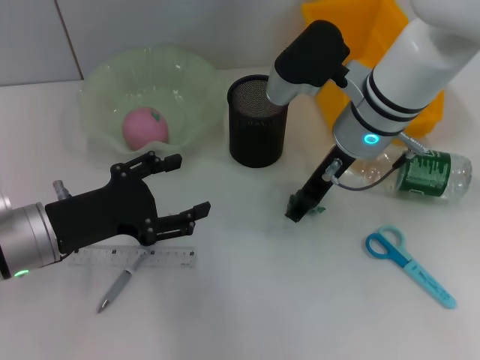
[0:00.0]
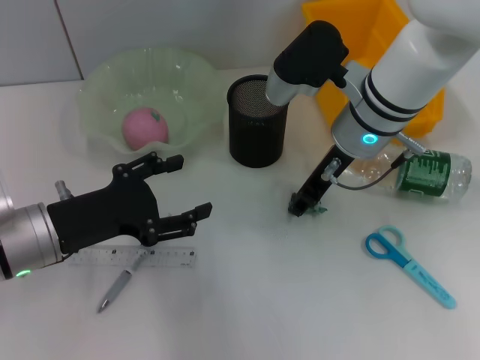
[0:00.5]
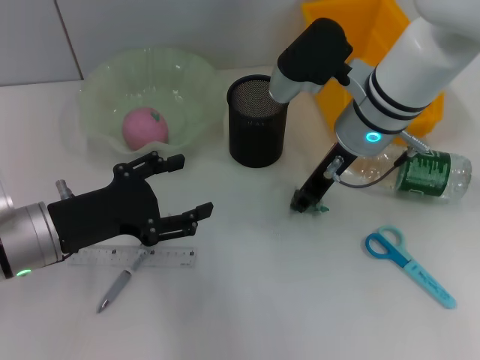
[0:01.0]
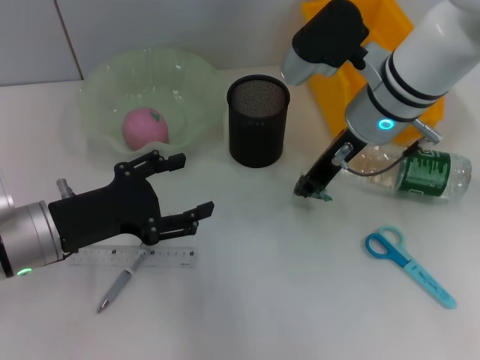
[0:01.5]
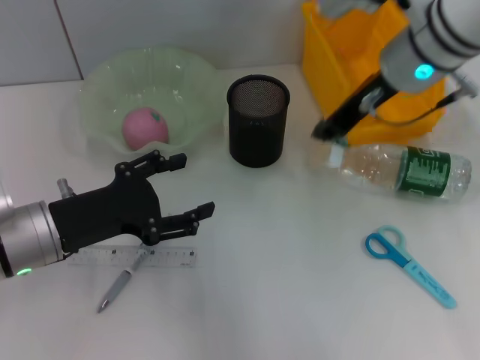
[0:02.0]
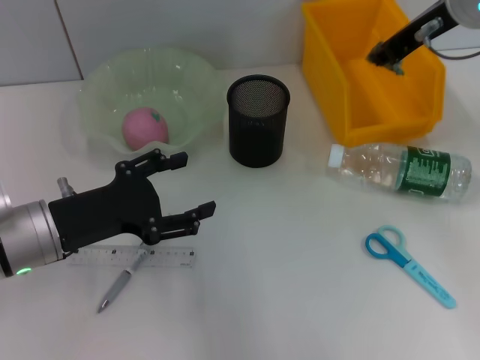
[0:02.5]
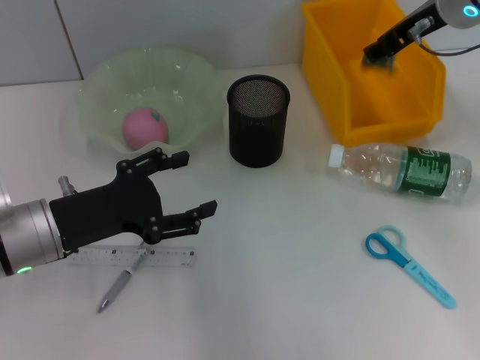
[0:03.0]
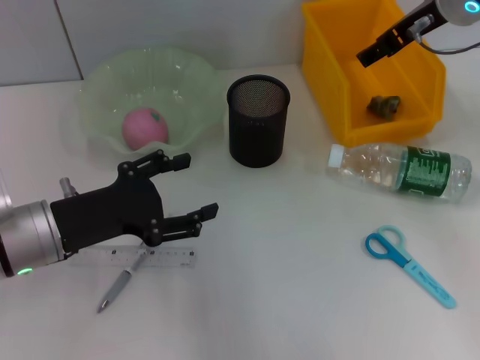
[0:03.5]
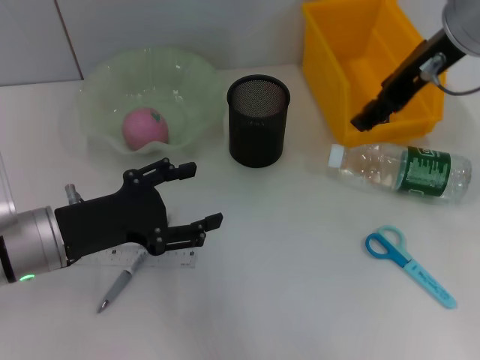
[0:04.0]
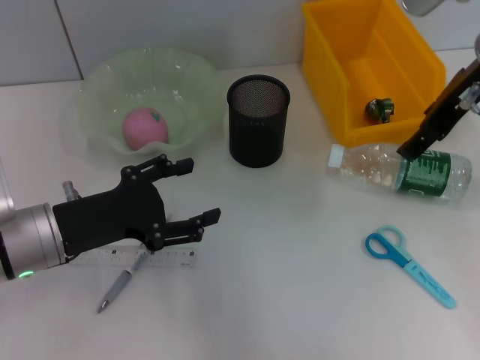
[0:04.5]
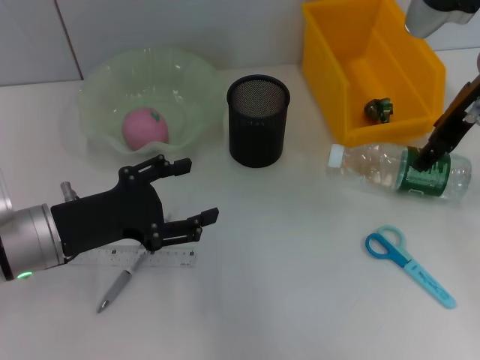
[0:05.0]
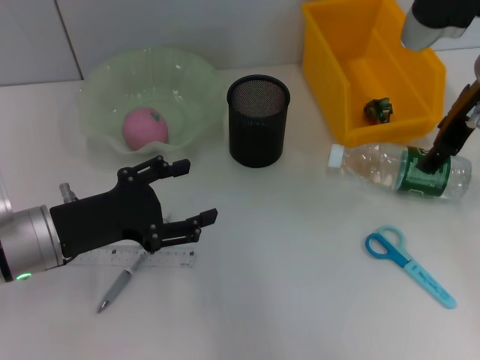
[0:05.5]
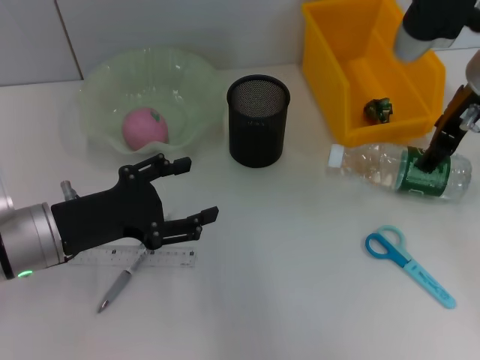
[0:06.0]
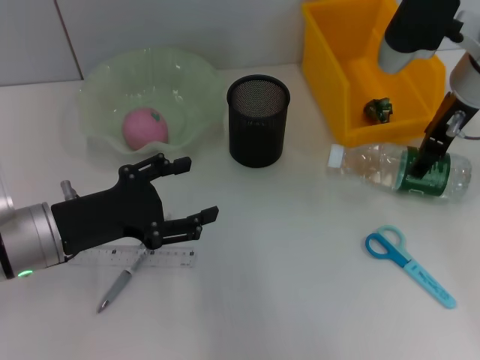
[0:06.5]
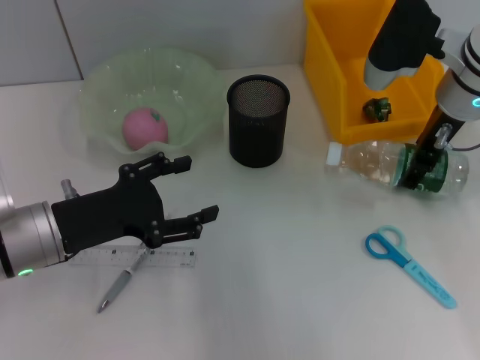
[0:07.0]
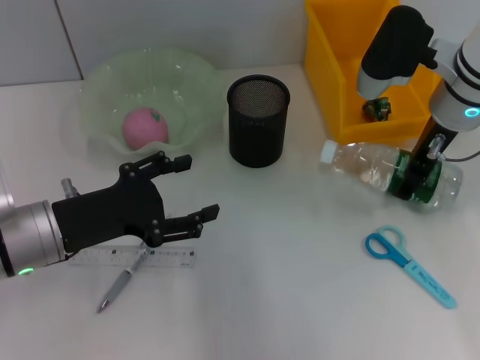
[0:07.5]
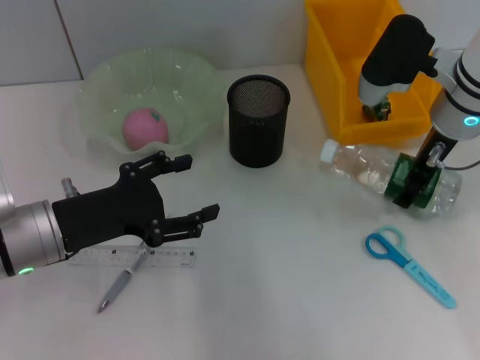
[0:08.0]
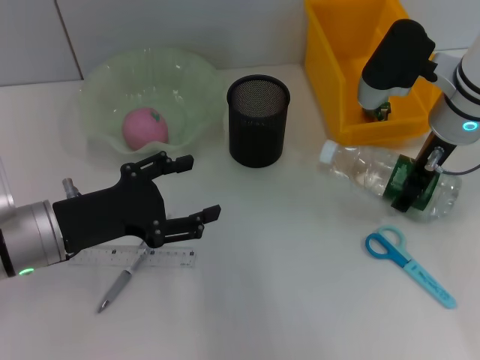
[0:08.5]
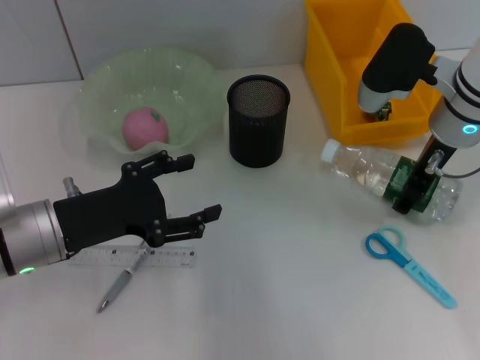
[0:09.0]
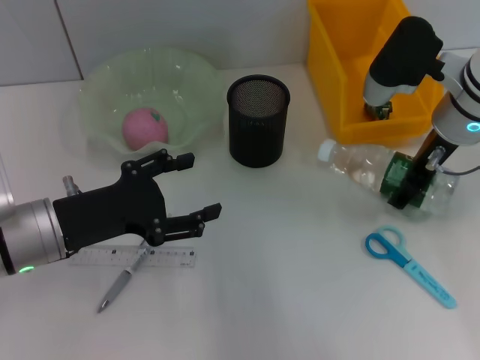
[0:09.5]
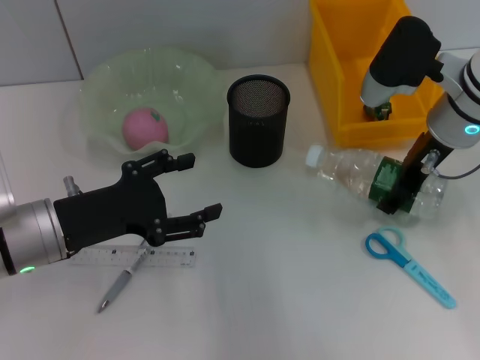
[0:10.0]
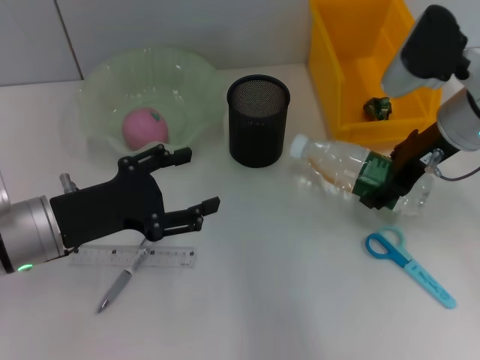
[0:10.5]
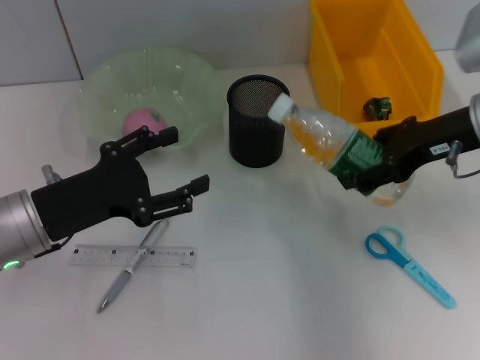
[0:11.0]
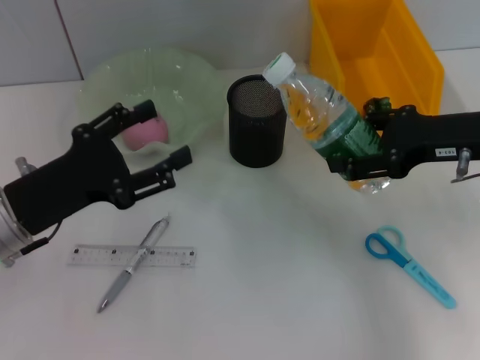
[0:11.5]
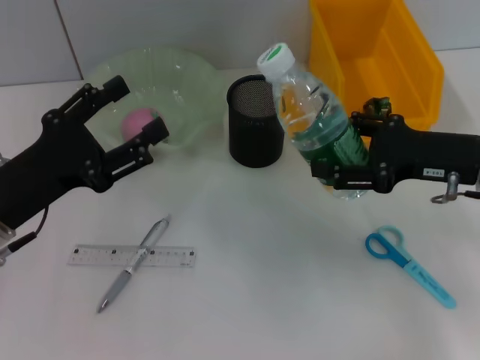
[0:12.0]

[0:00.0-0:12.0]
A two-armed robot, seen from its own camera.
Step, 1.5 to 3.0 s: Place the plastic into the trash can with the right hand.
Step, 3.5 to 9.0 s: Grab the water bottle with the right hand.
0.0 to 2.0 s: The right gripper heads upward, covering about 5 cm, and closes its fingers.
2.0 to 4.0 s: The right gripper shifts by about 5 cm, and opens its fingers.
4.0 to 6.0 s: The right gripper heads downward, covering some 5 cm.
6.0 to 10.0 s: There are only small adjustments of the grippers.
10.0 to 12.0 s: The right gripper shifts some 10 cm backward and to the right.

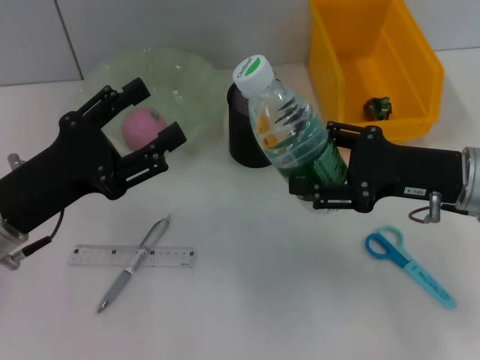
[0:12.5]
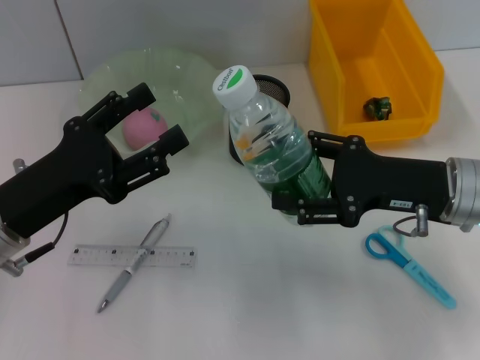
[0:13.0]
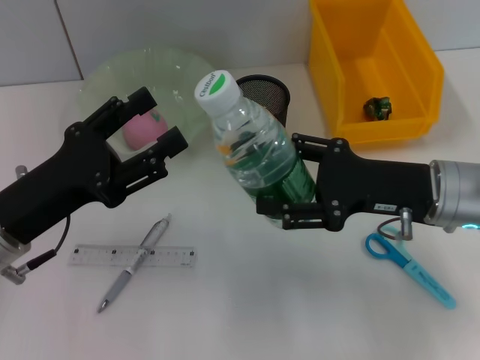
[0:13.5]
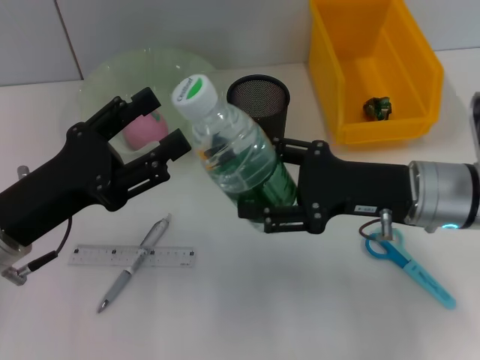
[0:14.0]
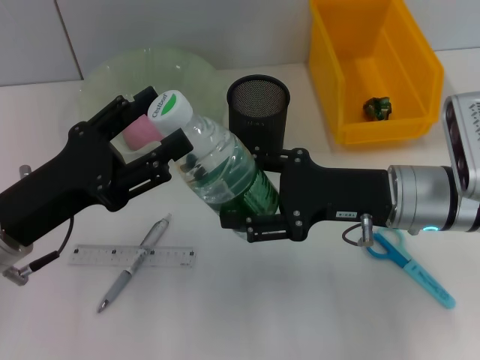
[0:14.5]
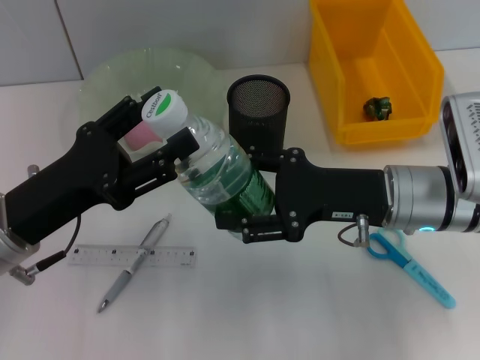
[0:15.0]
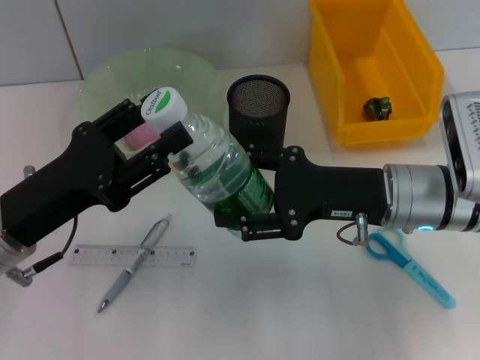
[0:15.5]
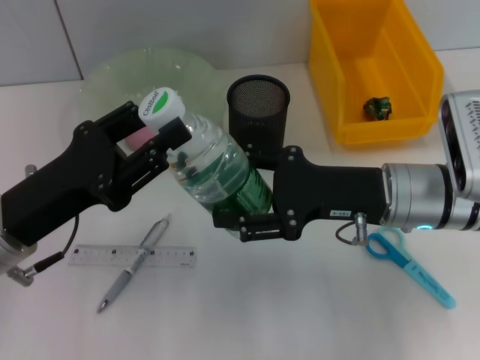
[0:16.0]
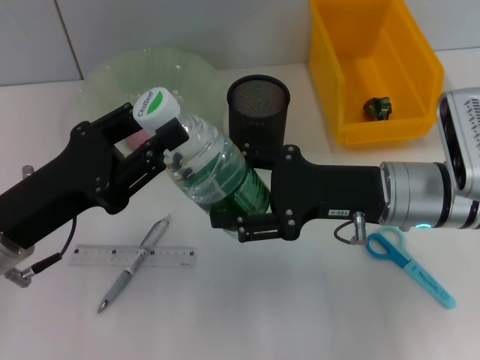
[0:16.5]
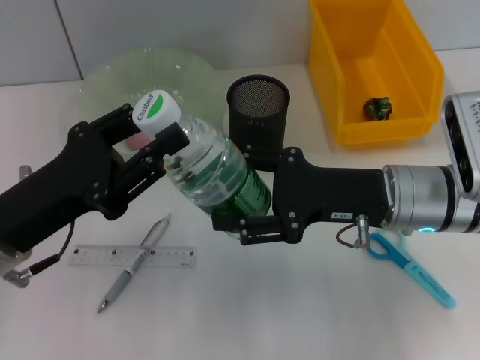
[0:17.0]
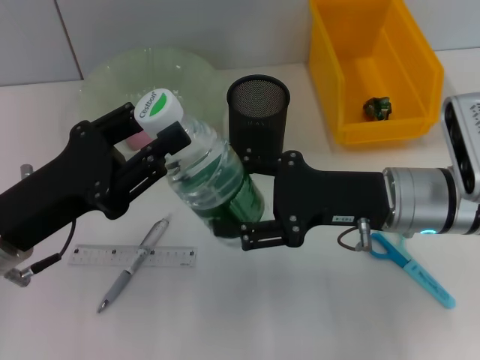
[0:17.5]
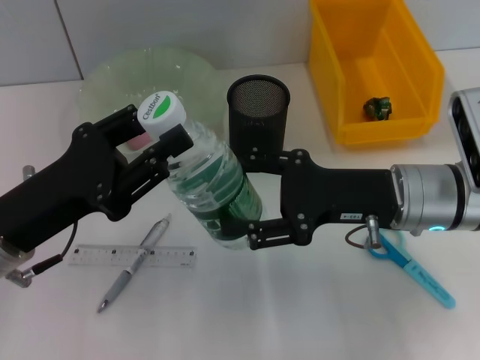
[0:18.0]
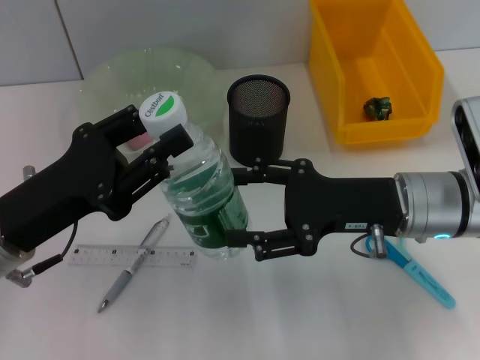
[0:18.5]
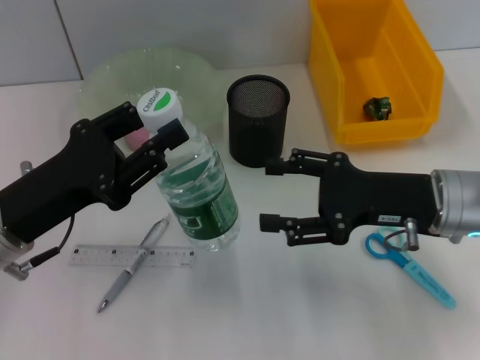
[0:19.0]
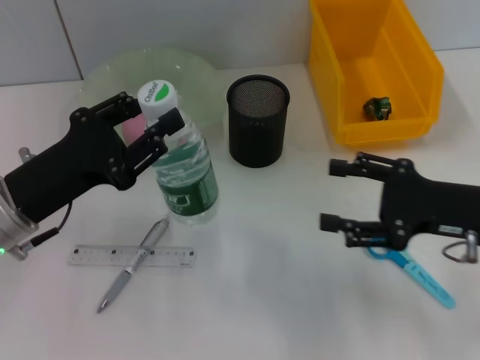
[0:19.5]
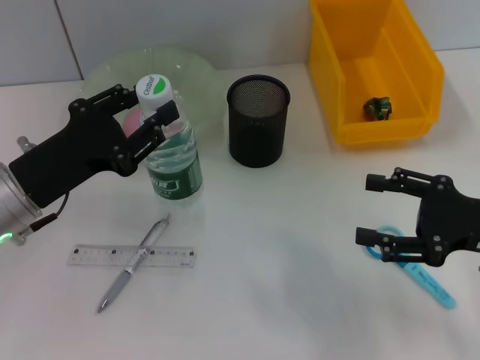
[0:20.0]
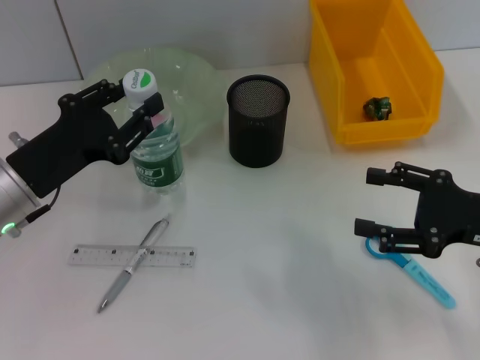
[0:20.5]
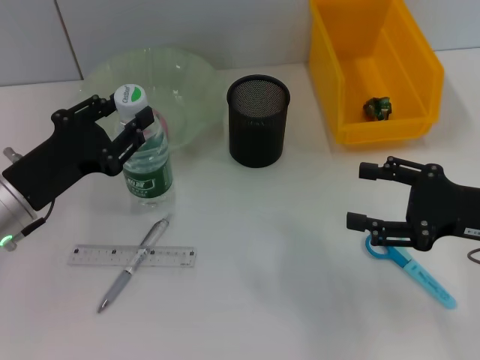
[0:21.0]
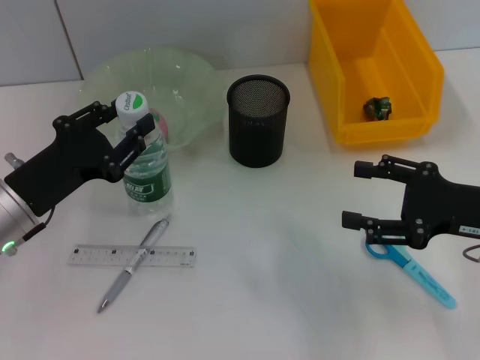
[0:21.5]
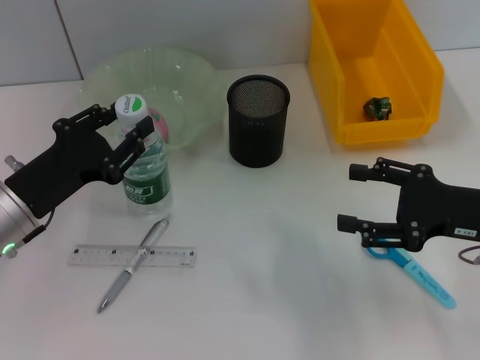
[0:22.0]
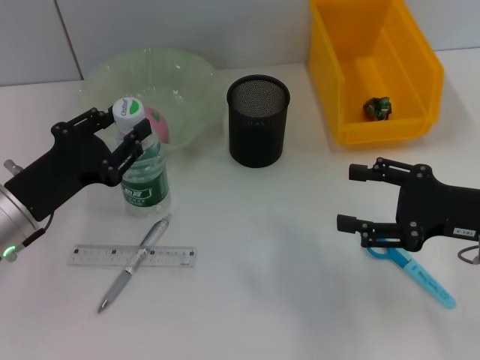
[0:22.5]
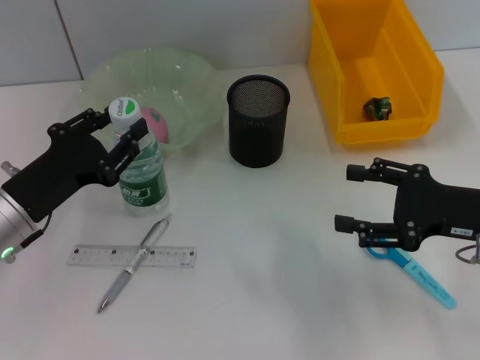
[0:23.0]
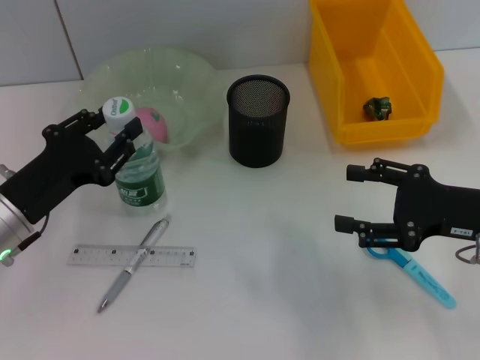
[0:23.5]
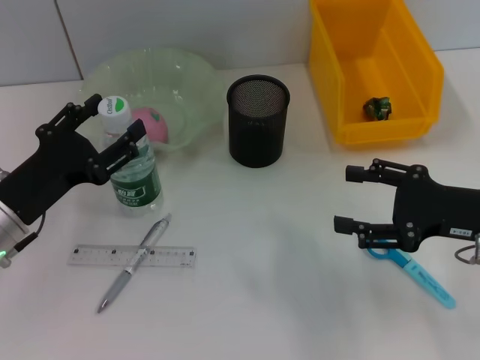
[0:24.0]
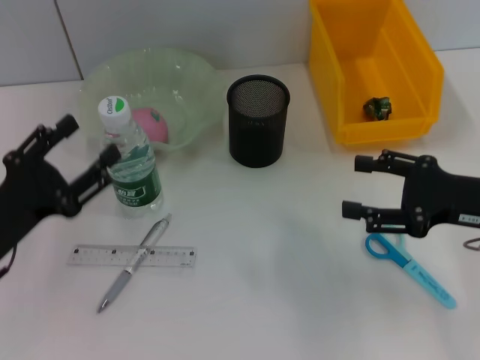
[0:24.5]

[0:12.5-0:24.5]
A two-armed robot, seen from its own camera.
Step, 12.5 to 18.5 s: Pass the water bottle from the right hand to the left hand.
Step, 19.0 to 23.5 s: Place the water bottle on the table with the left hand.
12.5 to 14.5 s: The right gripper travels to the left by roughly 5 cm.
14.5 to 16.5 s: The left gripper closes up.
16.5 to 18.5 s: There are only small adjustments of the grippers.
18.5 to 20.5 s: The left gripper shifts about 5 cm forward; the right gripper moves to the right, about 10 cm.
20.5 to 22.5 s: The grippers make only small movements.
22.5 to 24.5 s: The left gripper moves approximately 5 cm, and opens up.

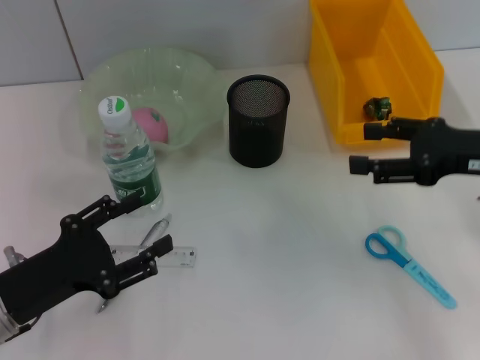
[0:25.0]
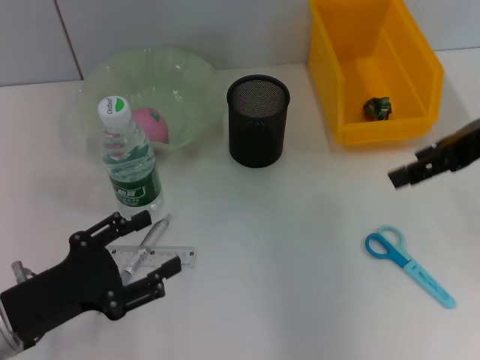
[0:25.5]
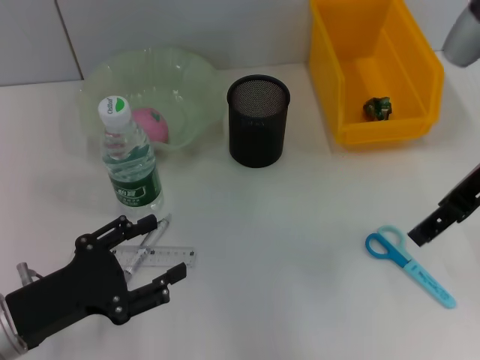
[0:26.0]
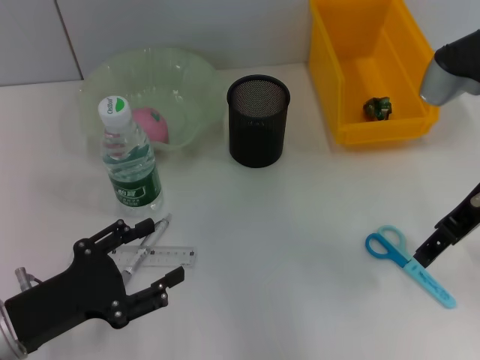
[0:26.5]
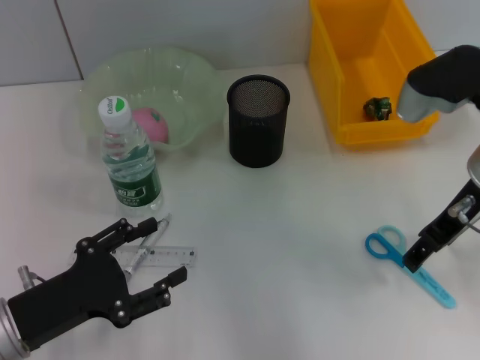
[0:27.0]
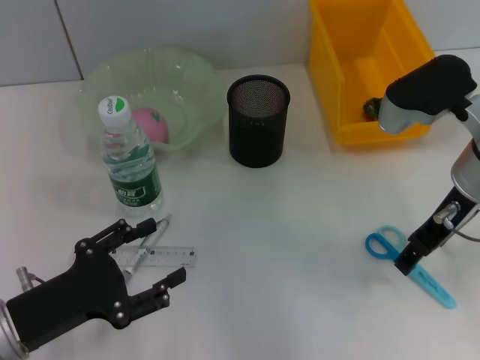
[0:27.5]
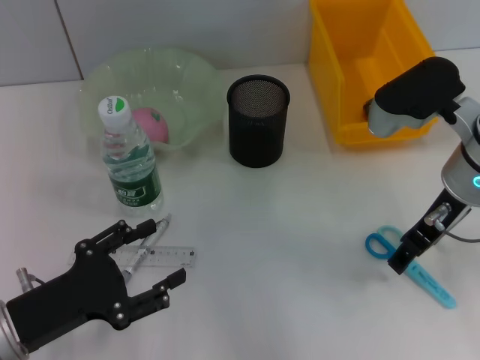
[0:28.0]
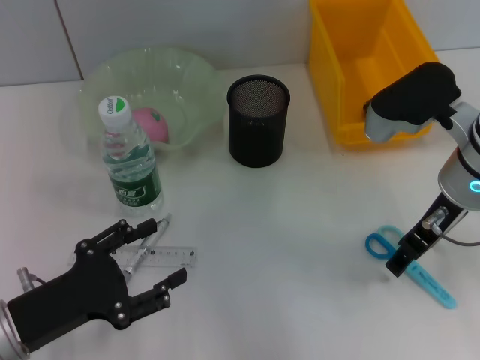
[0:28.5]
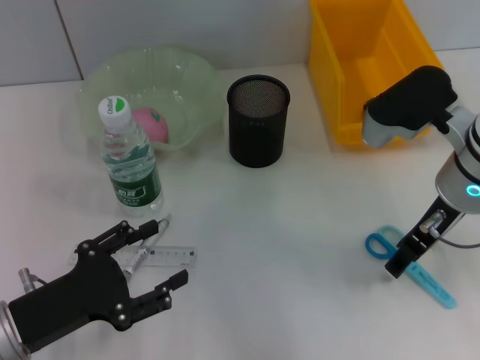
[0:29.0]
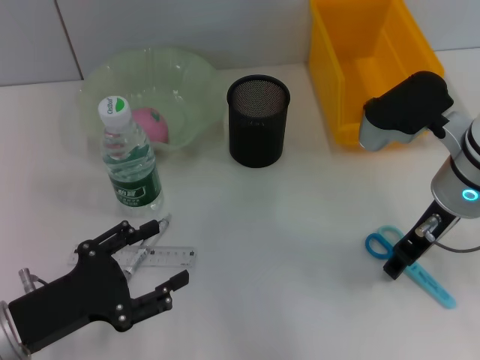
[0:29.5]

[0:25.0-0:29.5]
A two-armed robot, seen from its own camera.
25.0 to 27.0 s: The right gripper shifts some 10 cm to the left, and reaches roughly 10 cm upward, then returns.
27.0 to 29.5 s: The grippers move only a little.
